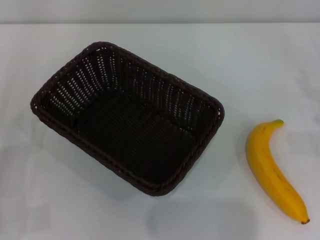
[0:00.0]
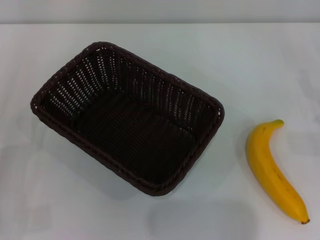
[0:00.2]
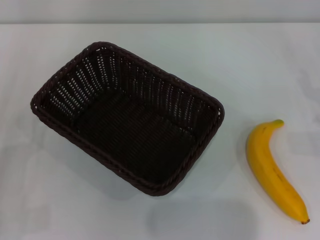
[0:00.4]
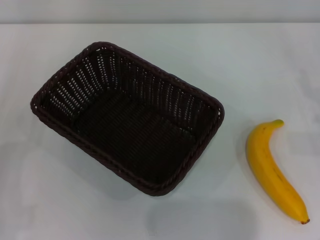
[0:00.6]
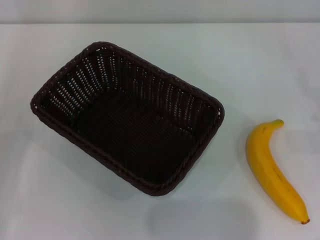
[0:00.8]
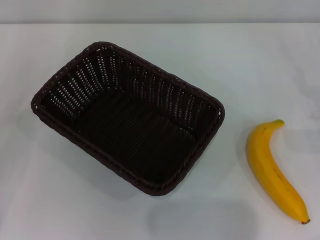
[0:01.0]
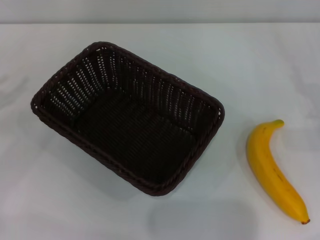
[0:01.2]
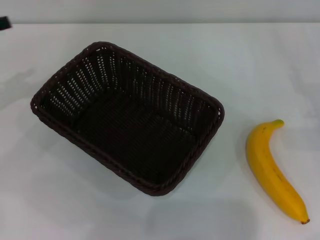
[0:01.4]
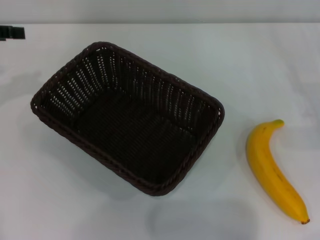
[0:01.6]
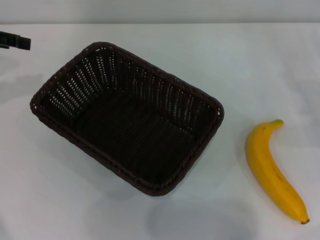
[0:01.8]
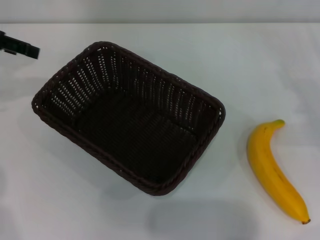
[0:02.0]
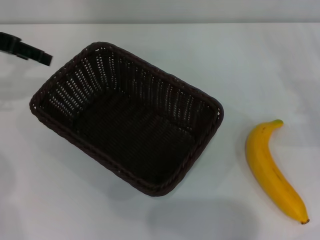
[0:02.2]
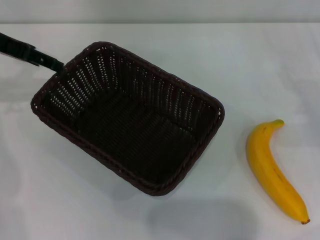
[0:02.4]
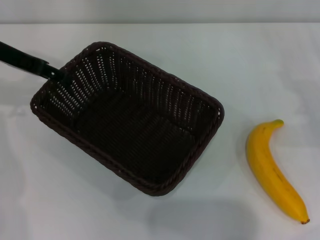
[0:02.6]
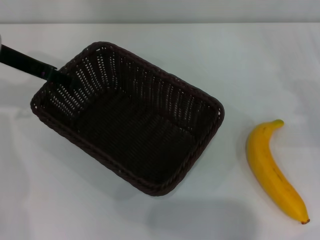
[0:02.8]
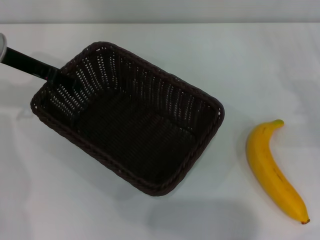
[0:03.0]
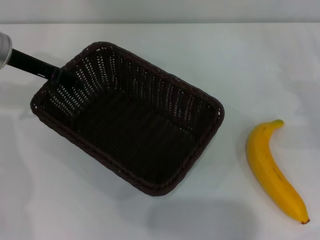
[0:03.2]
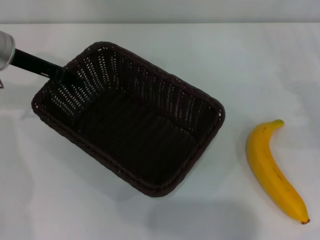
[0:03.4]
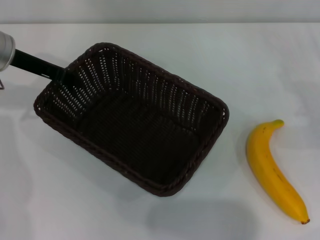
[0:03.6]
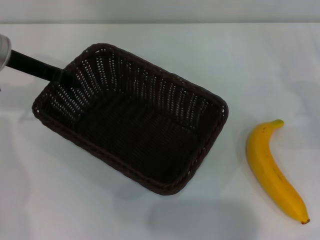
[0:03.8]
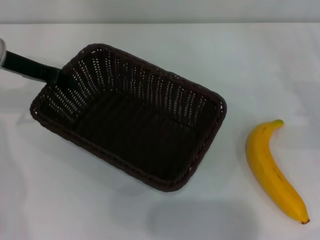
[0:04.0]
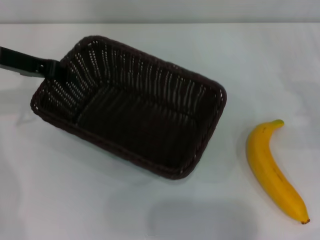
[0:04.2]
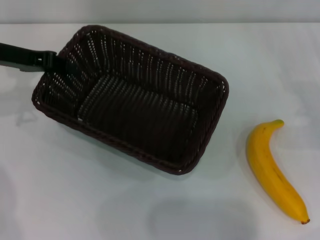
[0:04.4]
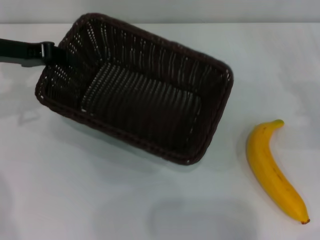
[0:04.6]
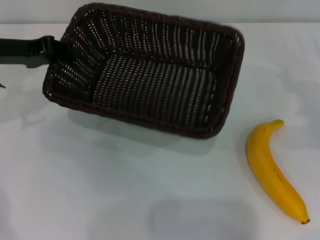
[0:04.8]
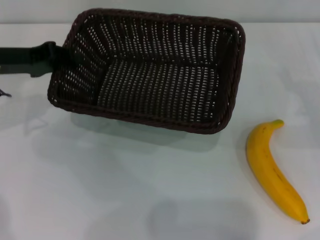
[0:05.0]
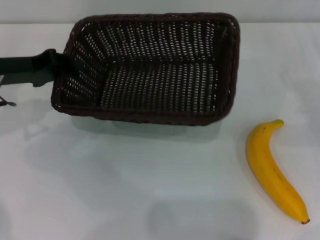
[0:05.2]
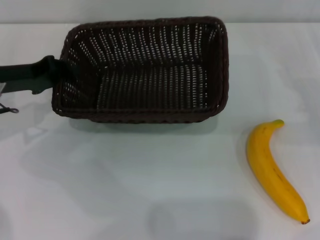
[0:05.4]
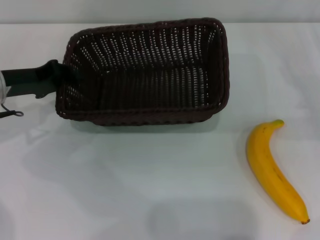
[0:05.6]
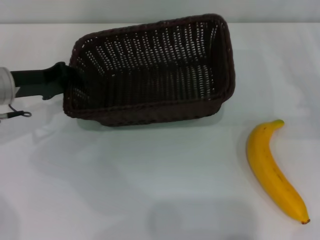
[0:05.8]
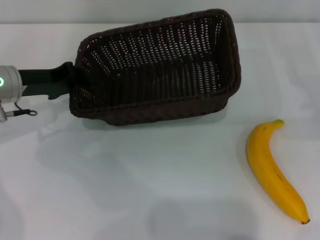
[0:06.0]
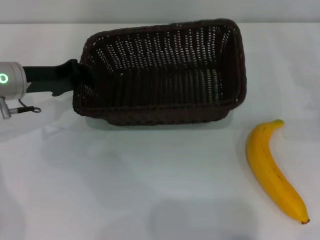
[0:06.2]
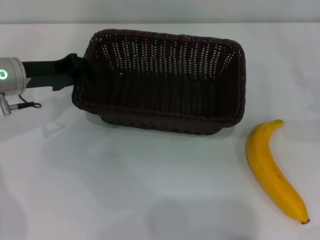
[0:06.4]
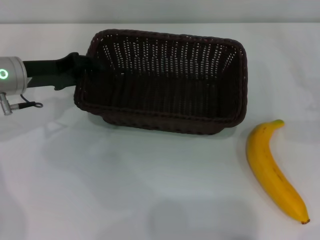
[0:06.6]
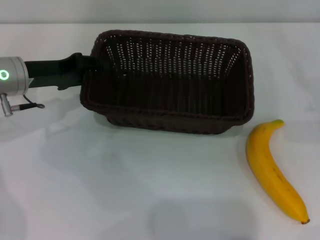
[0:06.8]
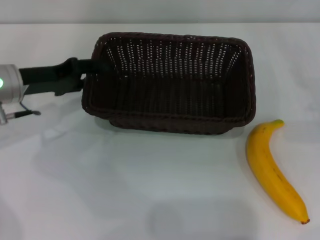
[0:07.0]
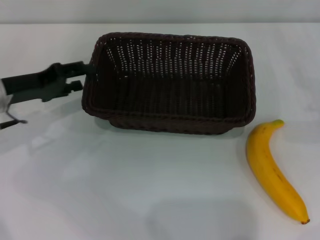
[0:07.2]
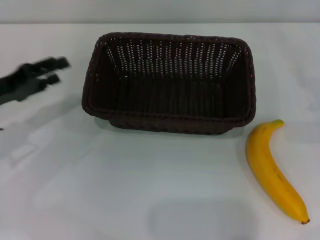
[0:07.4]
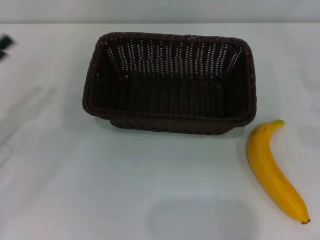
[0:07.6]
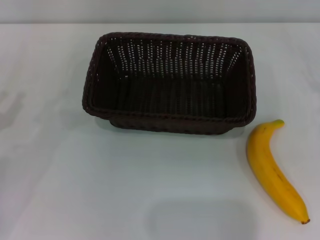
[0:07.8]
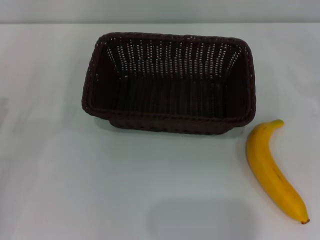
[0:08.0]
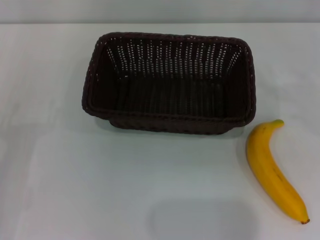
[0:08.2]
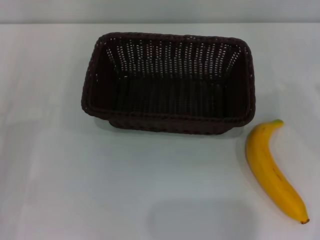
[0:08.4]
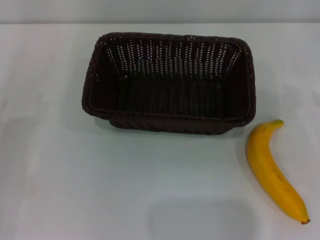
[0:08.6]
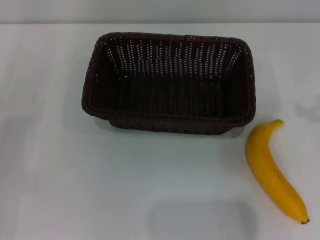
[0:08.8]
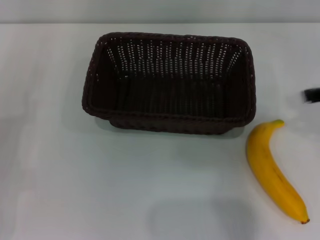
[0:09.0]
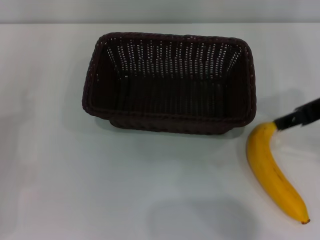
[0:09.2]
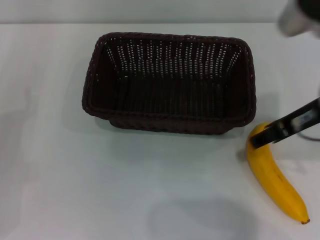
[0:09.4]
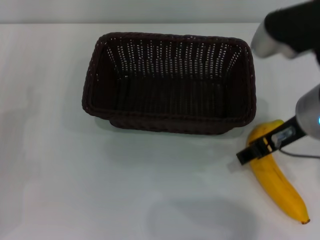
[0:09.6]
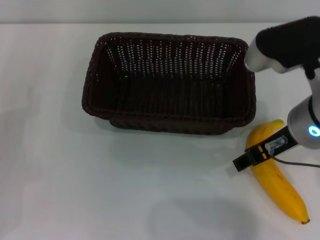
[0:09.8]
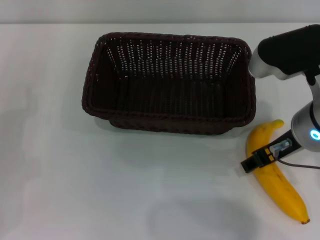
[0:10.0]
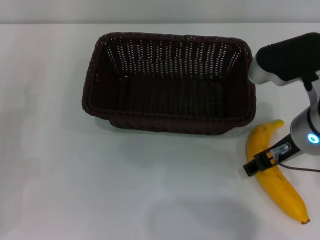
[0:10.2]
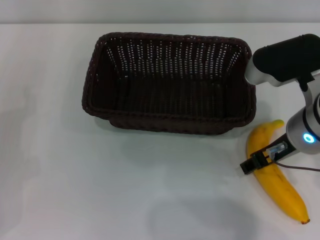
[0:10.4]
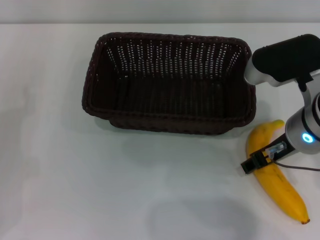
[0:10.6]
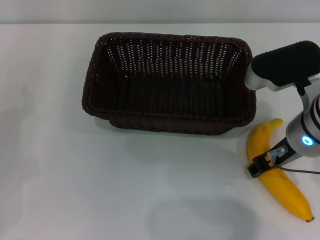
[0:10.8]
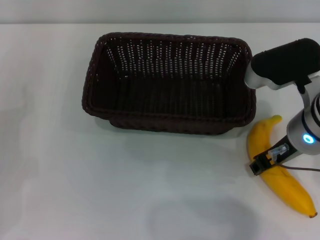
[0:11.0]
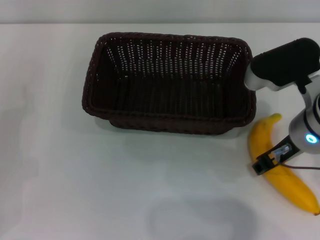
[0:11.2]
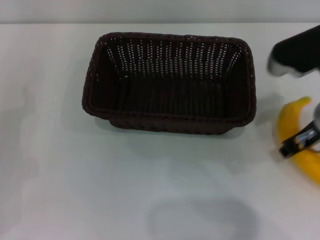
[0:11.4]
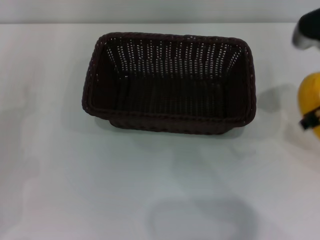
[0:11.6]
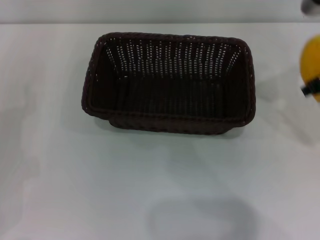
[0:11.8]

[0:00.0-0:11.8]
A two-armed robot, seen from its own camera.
Step, 0:00.0 to 0:04.2: Pick up the dark basket with the left gripper.
Step, 0:04.6 to 0:06.8: Place the dark basket in the center of view with the left gripper.
Step, 0:07.2 to 0:11.2: Pick up the banana with the right gripper.
0:01.4 to 0:03.0: The left gripper heads to the right and forward, covering approximately 15 cm.
0:03.0 to 0:04.4: The left gripper closes up.
0:04.4 to 0:06.0: The left gripper moves downward, about 5 cm.
0:06.0 to 0:07.4: The left gripper heads backward and to the left, covering some 10 cm, and opens.
0:07.4 to 0:08.8: The left gripper goes about 10 cm downward and backward.
0:08.8 to 0:10.4: The right gripper is displaced to the left by roughly 15 cm.
0:10.4 to 0:11.8: The right gripper is displaced upward and to the right by approximately 10 cm, and closes.

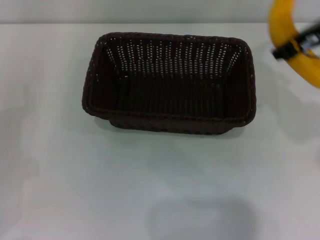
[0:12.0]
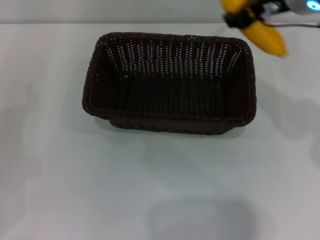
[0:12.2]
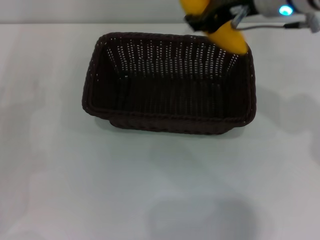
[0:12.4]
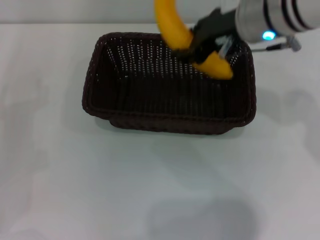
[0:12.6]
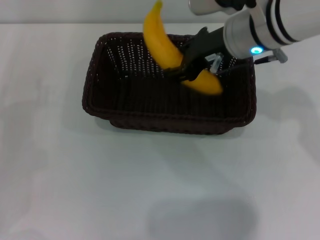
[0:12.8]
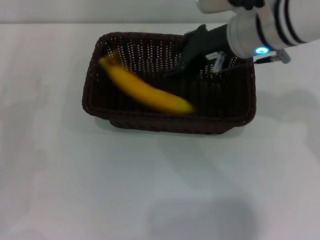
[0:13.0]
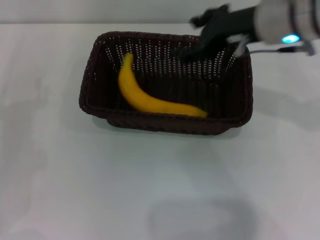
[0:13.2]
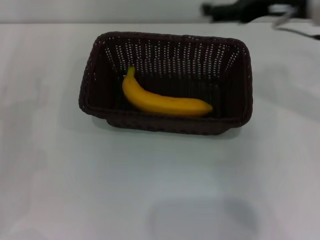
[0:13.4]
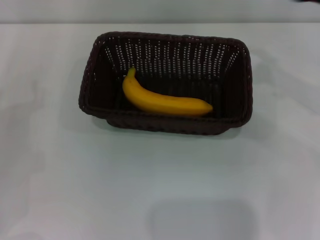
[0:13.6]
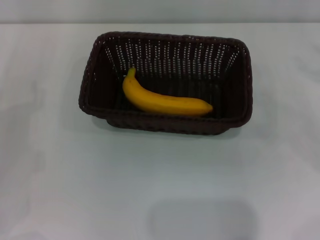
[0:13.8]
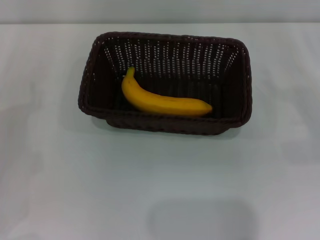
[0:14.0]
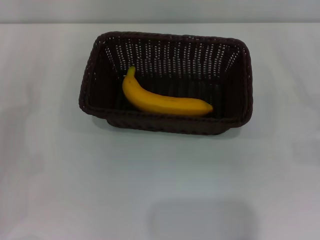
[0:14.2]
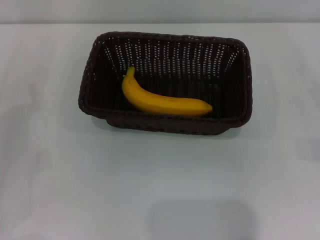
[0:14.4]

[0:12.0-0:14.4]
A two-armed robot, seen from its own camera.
Step, 0:12.0 to 0:13.0: Place the banana into the dark basket with the right gripper.
0:13.2 to 0:14.4: The right gripper goes approximately 30 cm to the right and downward, and opens.
